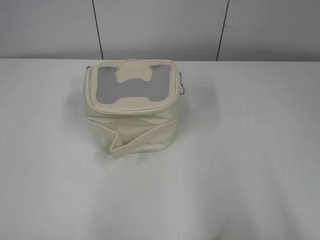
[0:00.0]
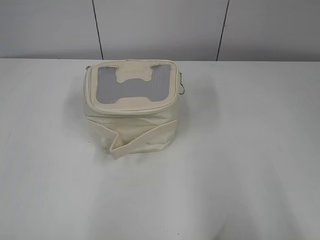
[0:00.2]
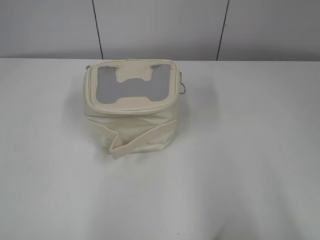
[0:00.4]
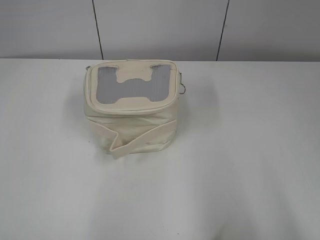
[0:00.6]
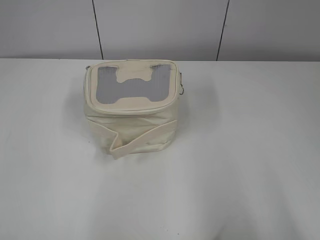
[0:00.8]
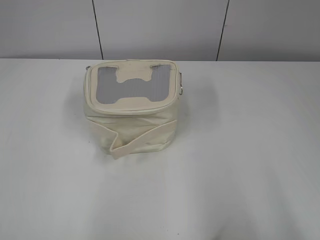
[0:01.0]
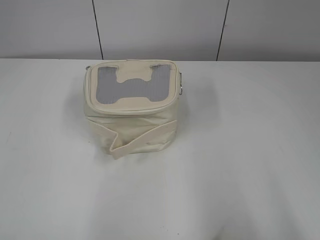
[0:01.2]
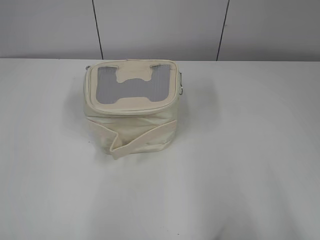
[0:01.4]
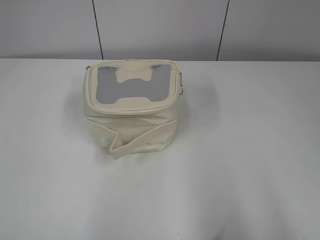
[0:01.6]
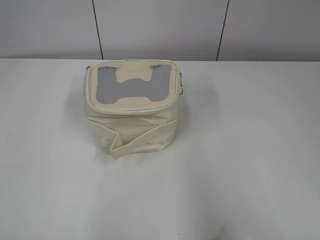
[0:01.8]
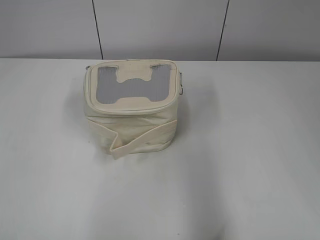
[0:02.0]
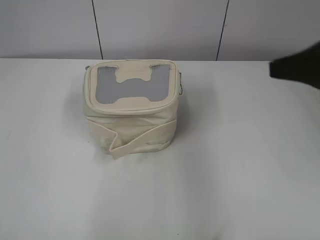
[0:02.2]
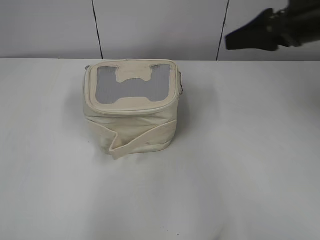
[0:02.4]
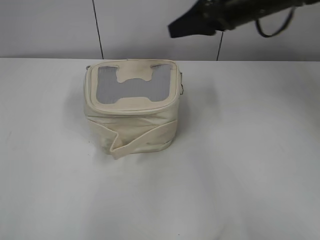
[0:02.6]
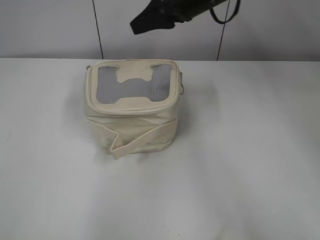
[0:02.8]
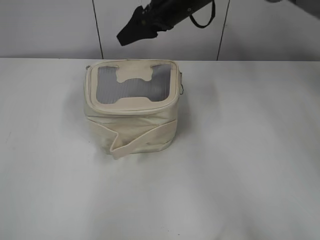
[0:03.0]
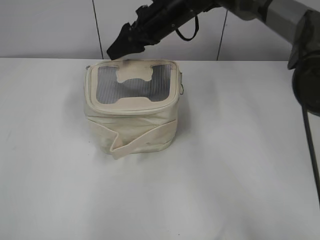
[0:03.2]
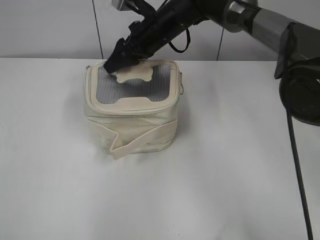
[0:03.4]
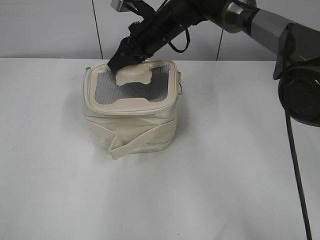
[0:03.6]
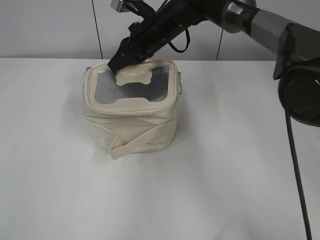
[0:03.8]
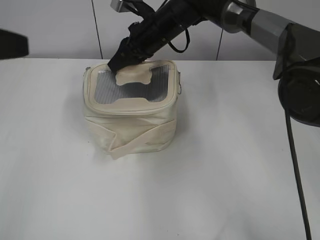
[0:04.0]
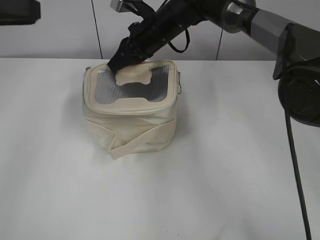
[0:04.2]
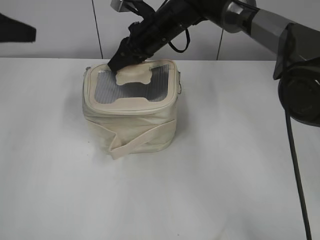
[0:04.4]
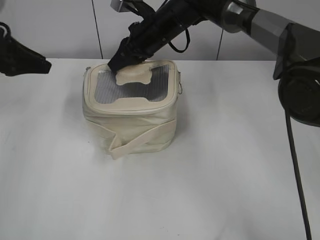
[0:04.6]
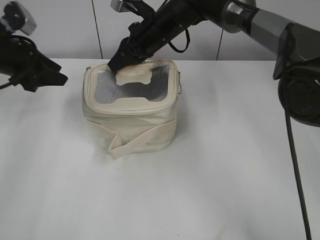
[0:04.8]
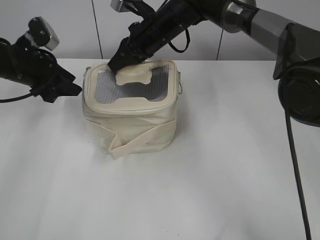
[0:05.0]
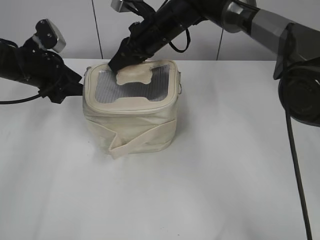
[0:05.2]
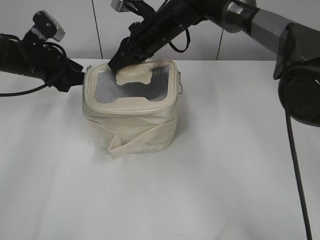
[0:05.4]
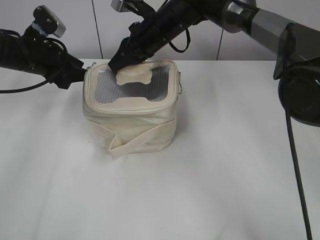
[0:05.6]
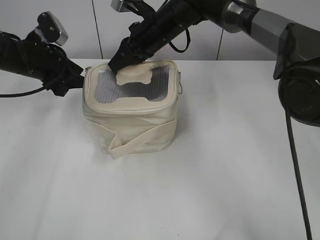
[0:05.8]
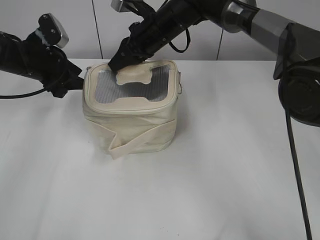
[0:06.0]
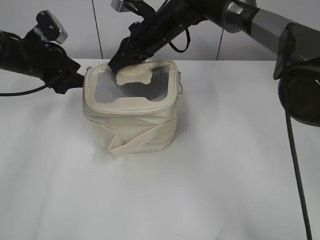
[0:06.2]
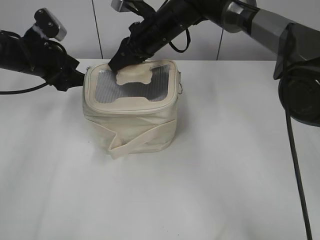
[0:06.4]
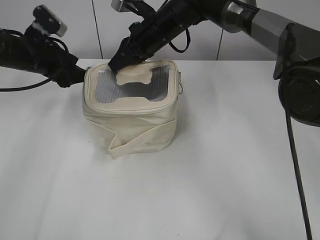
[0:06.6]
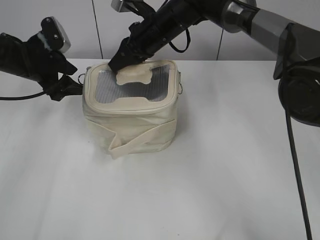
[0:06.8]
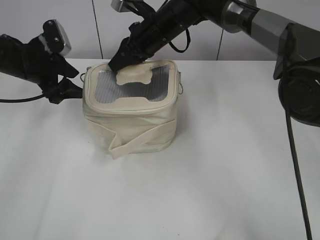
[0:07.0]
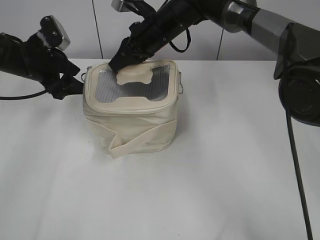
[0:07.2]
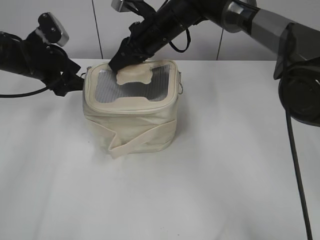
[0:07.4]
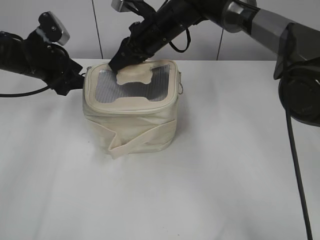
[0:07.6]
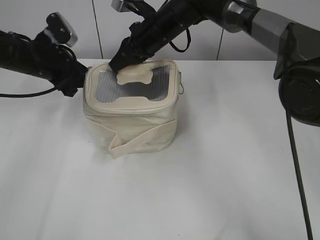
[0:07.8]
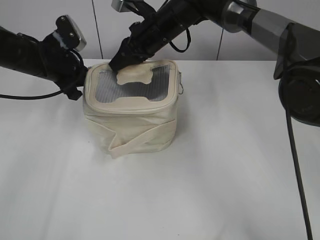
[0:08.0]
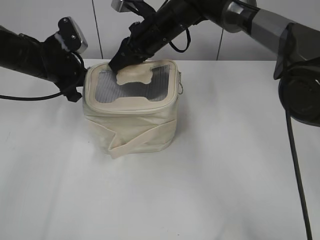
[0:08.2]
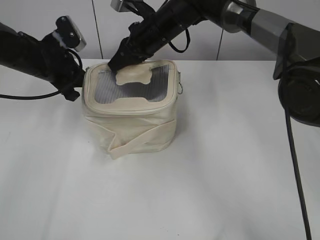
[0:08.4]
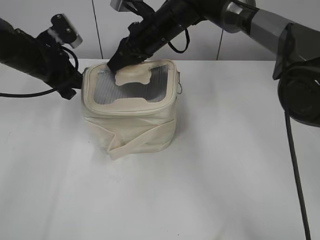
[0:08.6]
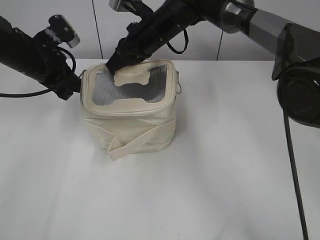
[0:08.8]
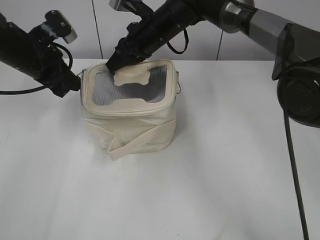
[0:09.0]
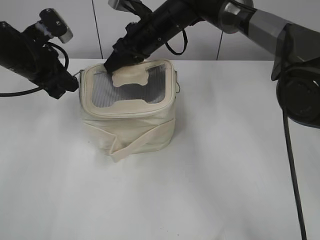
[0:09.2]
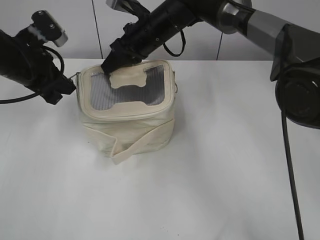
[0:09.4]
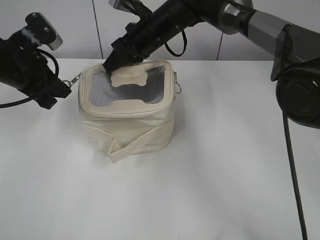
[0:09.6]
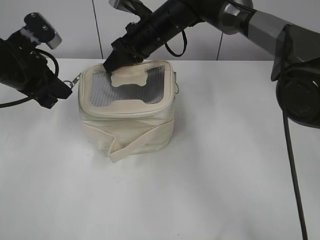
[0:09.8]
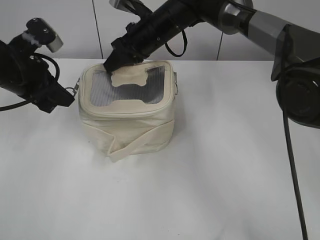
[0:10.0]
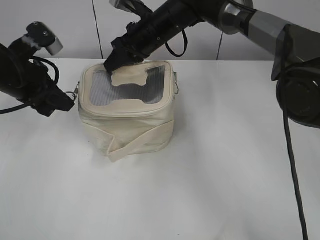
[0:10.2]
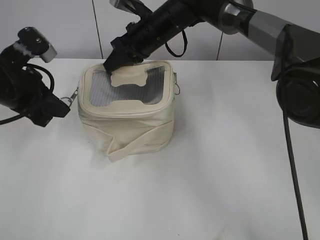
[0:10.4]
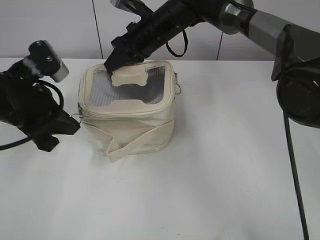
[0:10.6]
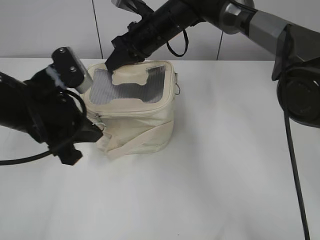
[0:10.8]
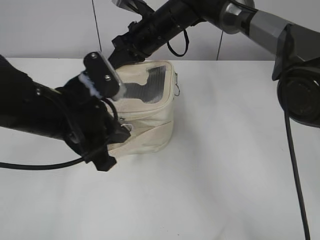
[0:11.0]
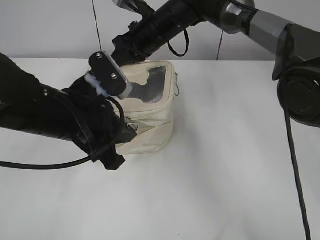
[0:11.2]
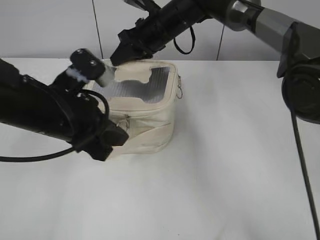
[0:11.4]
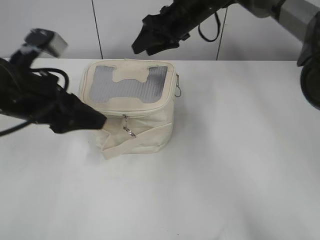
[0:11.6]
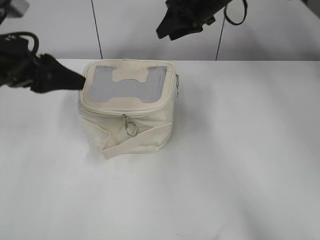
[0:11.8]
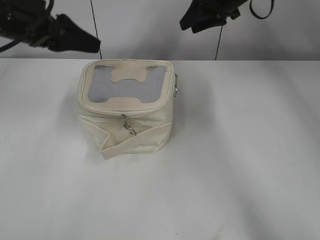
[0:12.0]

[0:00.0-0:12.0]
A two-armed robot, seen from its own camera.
Step, 0:00.0 to 0:11.4: Zip up the bag with your left hand.
0:01.6 to 0:03.0: The right gripper moves forward and to the left, roughly 50 cm.
0:03.0 to 0:04.4: The right gripper is displaced downward by roughly 5 cm, and closes. Meanwhile the left gripper is displaced forward by some 35 cm.
0:04.4 to 0:06.0: The left gripper heads downward, to the right and forward, covering some 15 cm.
0:06.0 to 0:07.6: The grippers move only a little.
0:07.6 to 0:09.0: The left gripper closes up.
0:09.0 to 0:10.4: The left gripper heads backward, covering some 10 cm.
0:10.4 to 0:12.0: The left gripper moves upward, approximately 5 cm, and opens. Meanwhile the right gripper moves to the right and upward, about 15 cm, and opens up.

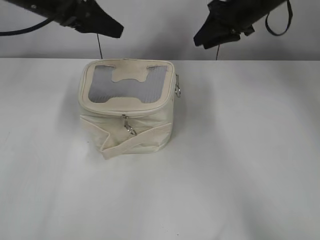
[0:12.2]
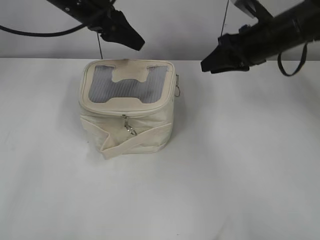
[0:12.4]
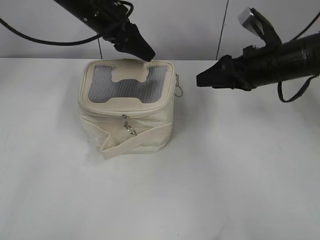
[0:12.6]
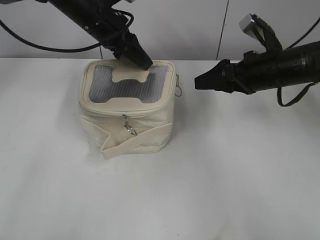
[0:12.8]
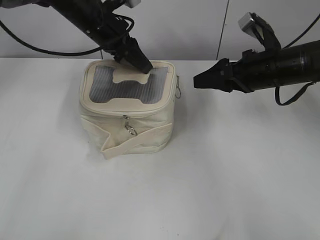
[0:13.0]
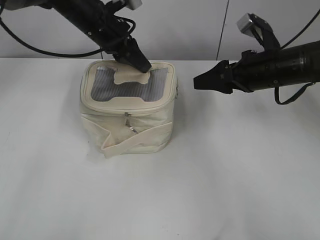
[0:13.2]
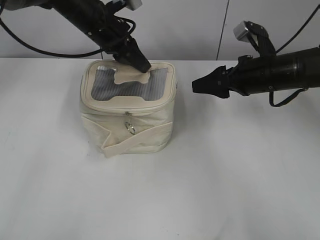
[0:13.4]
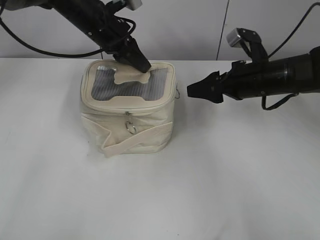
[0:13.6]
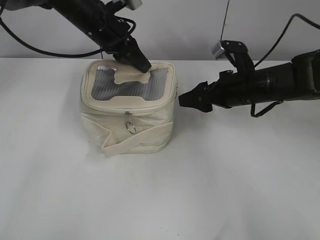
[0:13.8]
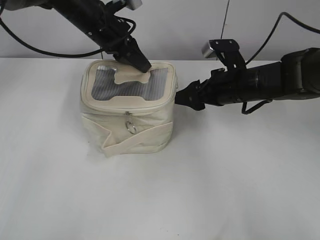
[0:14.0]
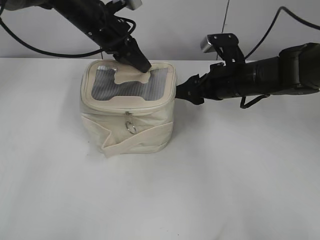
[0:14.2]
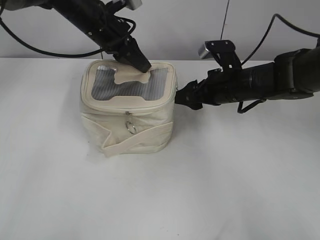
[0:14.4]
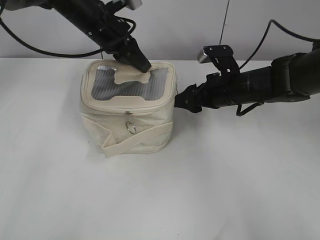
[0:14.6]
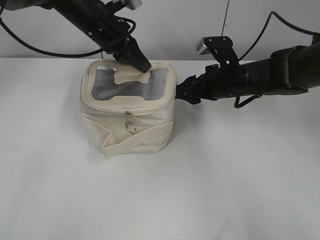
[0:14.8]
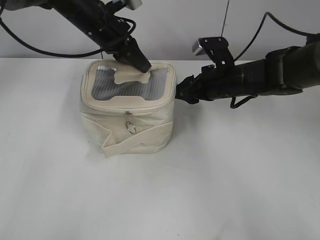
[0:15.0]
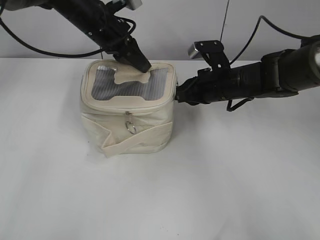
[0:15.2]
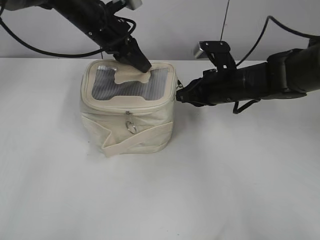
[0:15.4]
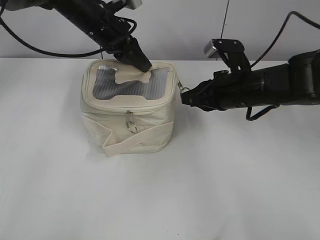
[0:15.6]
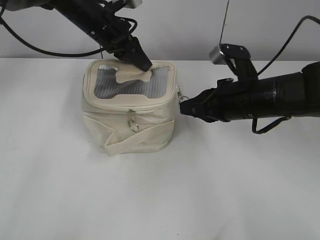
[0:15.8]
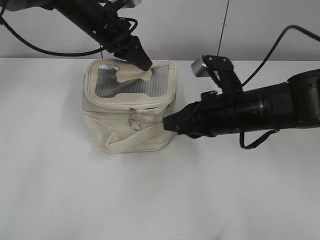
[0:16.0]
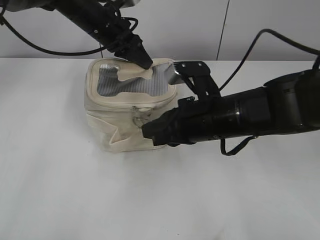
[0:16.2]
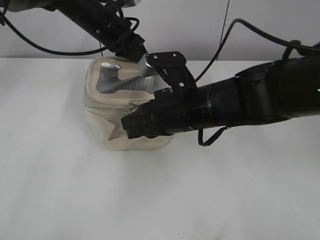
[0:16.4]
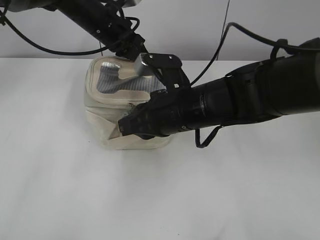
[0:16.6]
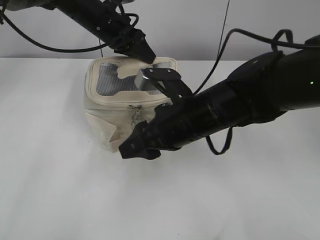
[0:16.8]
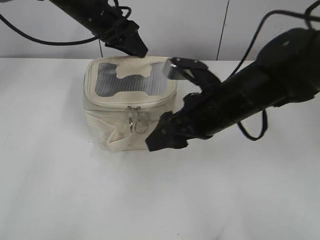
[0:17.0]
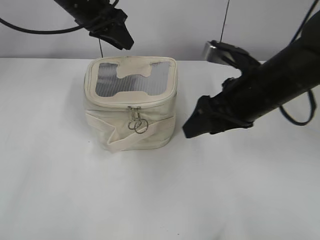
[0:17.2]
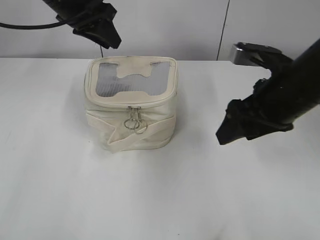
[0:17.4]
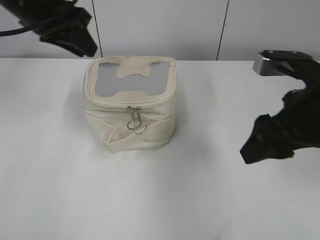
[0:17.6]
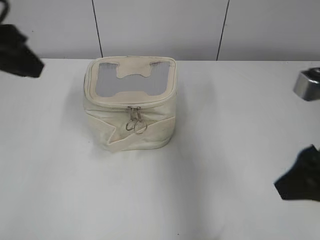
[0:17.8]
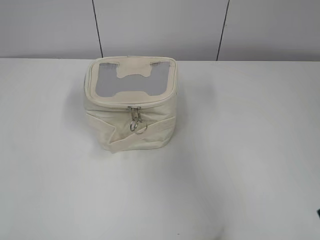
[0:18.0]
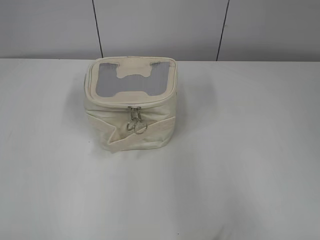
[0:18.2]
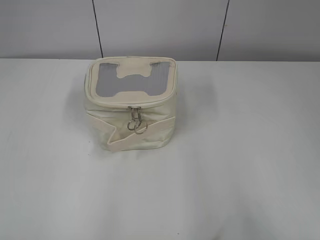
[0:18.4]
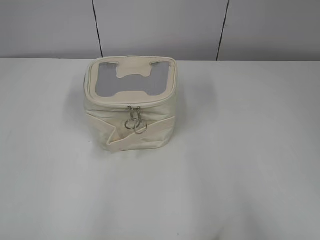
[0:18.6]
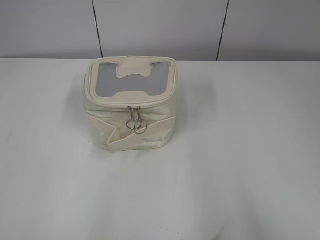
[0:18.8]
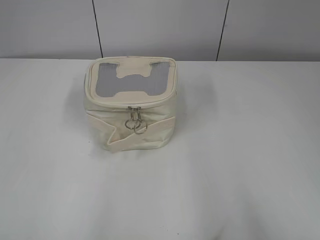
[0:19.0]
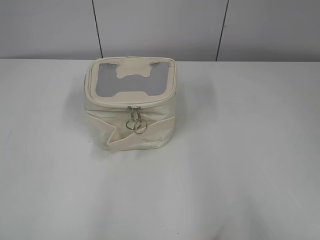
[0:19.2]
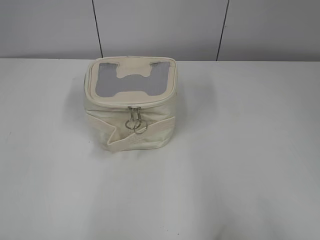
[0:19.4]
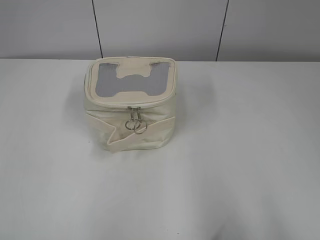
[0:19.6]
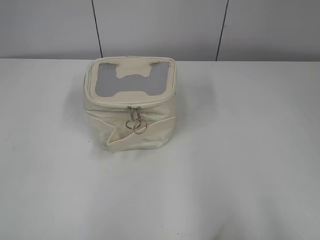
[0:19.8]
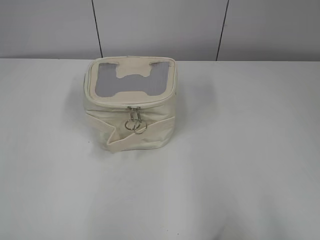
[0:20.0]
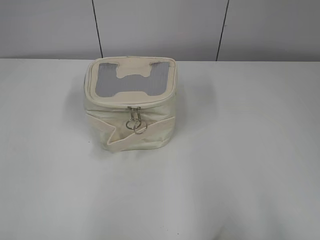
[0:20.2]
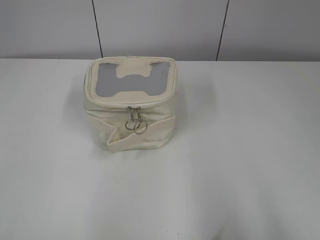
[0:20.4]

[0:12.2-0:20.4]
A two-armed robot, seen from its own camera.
Step, 0:12.2 to 0:16.6: Zip up the bag with your right hand.
Step, 0:16.8 to 0:17.2: Hold the bag with your left hand.
0:12.2 to 0:13.8: The right gripper goes about 15 cm backward and downward, and opens up. Meanwhile the left gripper travels downward, to the right and forward by roughly 10 cm, and closes its fingers.
0:13.8 to 0:15.4: The right gripper closes up.
0:15.4 to 0:17.2: The right gripper moves backward and upward, approximately 15 cm, and opens up.
0:17.2 to 0:18.8: The left gripper moves backward and to the left, about 50 cm. The right gripper travels backward and to the right by approximately 30 cm.

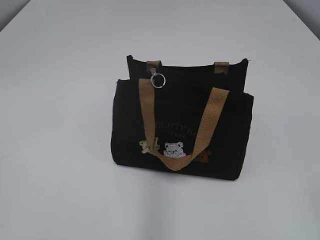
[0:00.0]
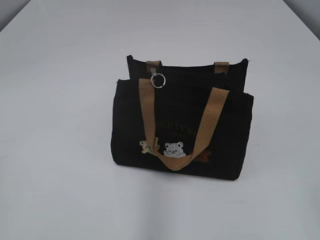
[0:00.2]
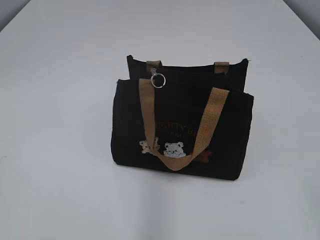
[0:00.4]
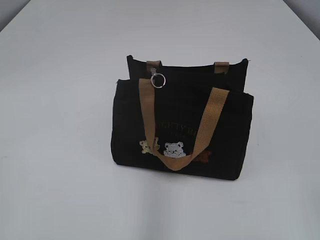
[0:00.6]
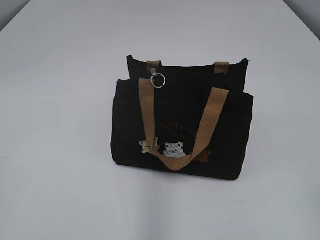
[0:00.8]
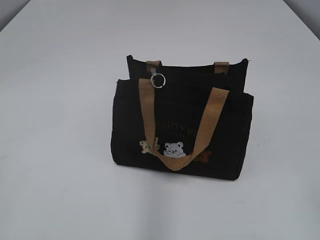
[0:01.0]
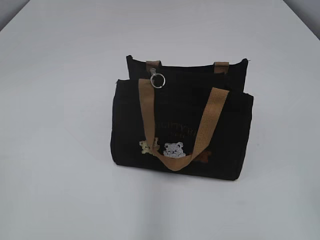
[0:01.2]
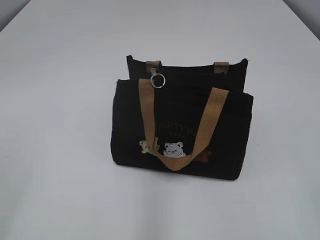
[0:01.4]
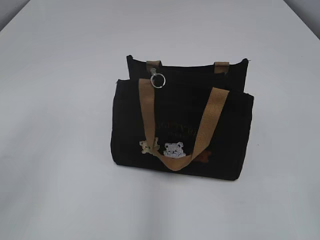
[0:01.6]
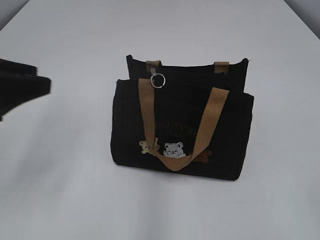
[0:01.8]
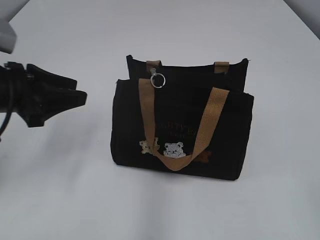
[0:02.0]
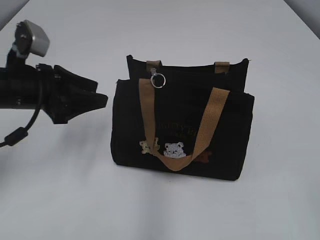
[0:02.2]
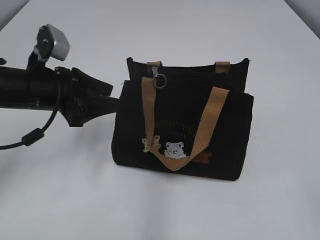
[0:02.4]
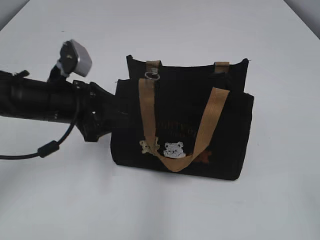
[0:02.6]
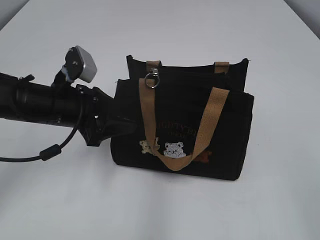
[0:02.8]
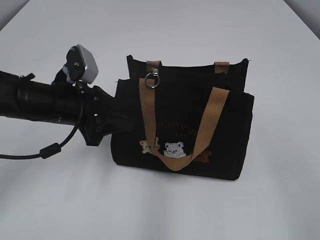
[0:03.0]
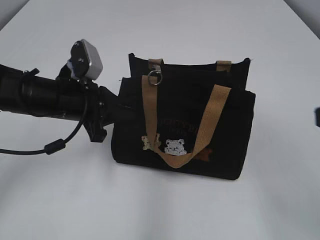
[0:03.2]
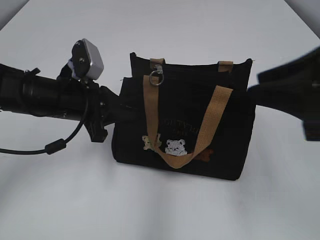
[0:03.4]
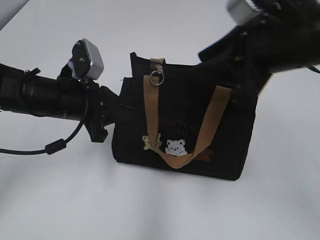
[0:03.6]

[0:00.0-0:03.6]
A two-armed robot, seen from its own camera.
0:01.8 to 0:03.6: The left gripper shifts about 20 cm downward, forward and to the right, and closes its fingers. Meanwhile the right gripper is displaced forward and to the left by roughly 30 cm.
